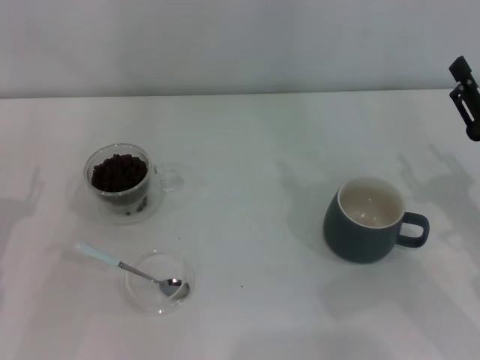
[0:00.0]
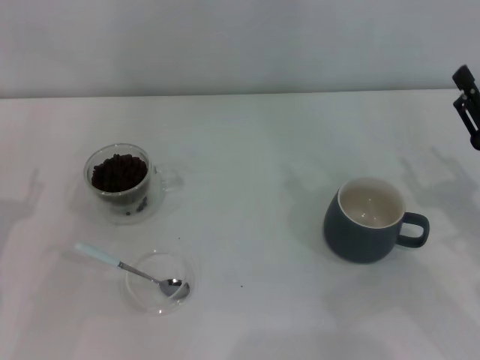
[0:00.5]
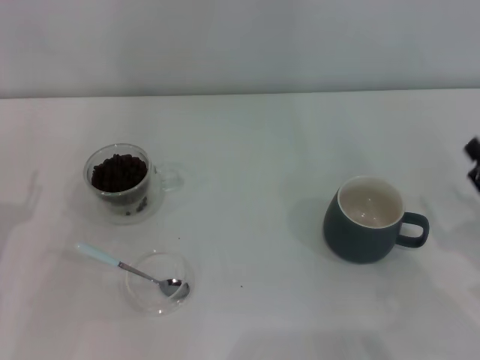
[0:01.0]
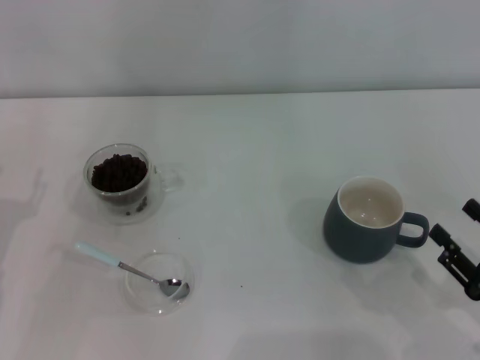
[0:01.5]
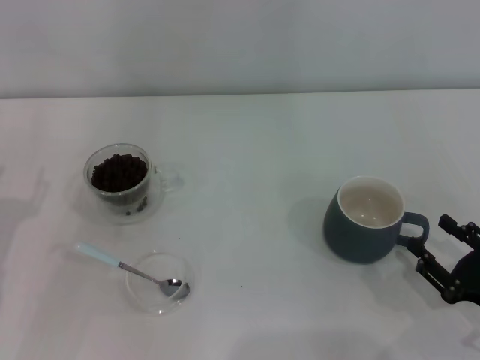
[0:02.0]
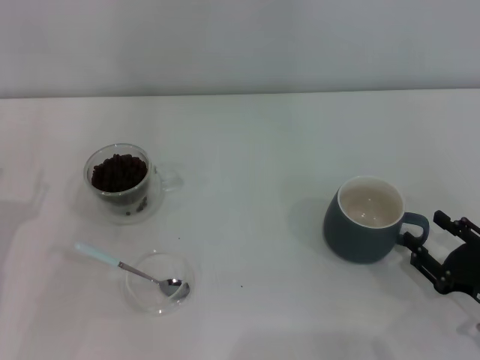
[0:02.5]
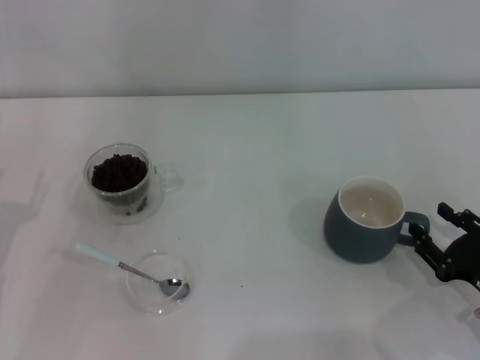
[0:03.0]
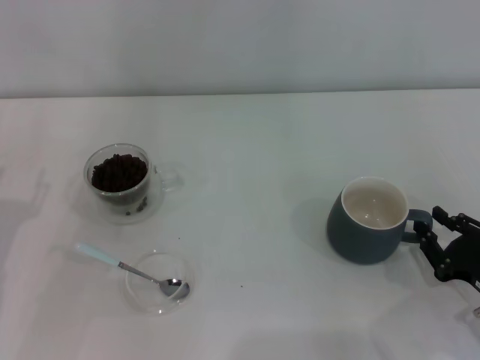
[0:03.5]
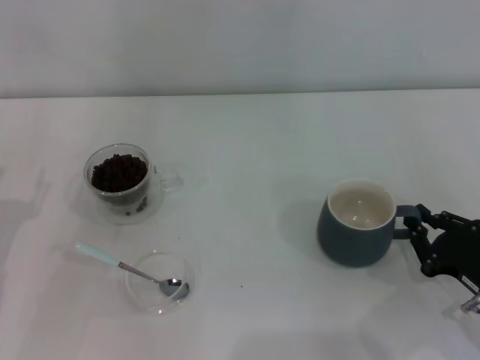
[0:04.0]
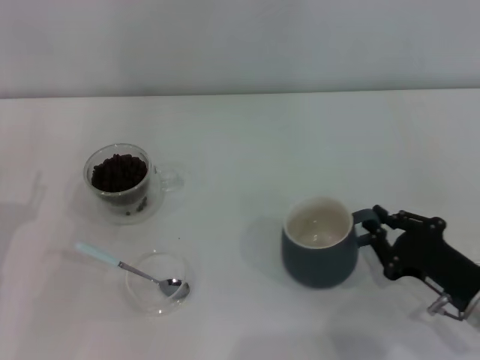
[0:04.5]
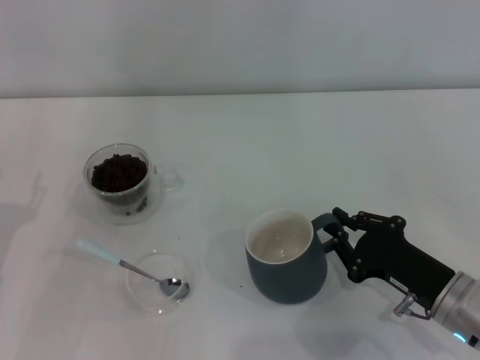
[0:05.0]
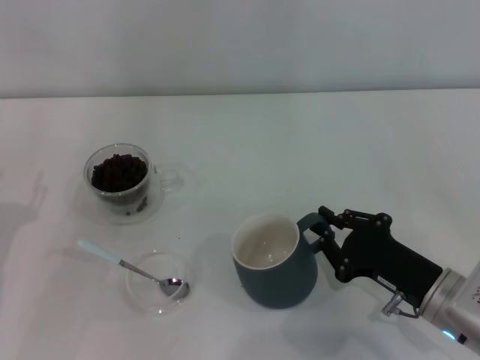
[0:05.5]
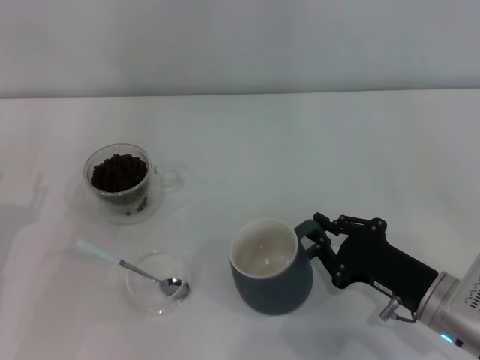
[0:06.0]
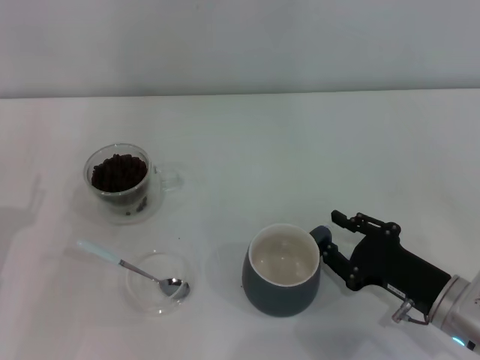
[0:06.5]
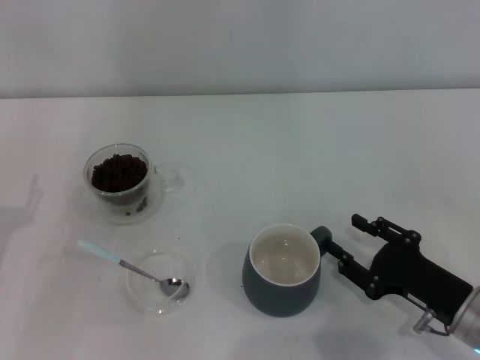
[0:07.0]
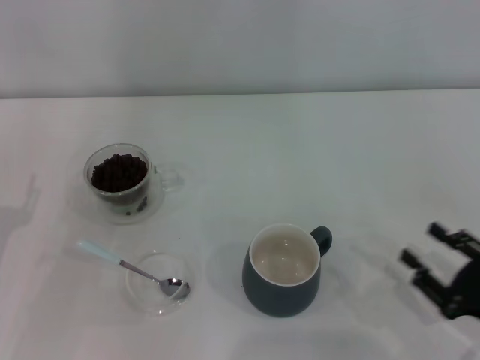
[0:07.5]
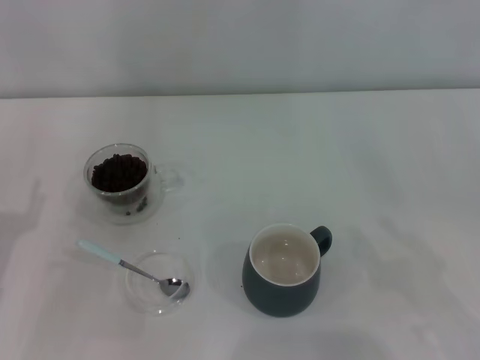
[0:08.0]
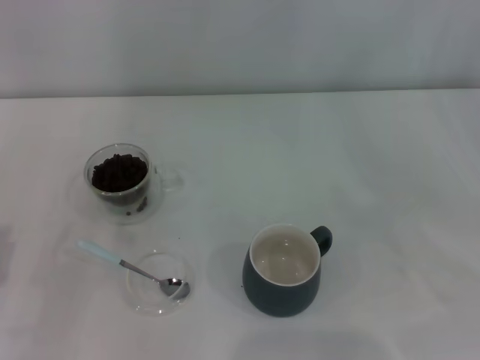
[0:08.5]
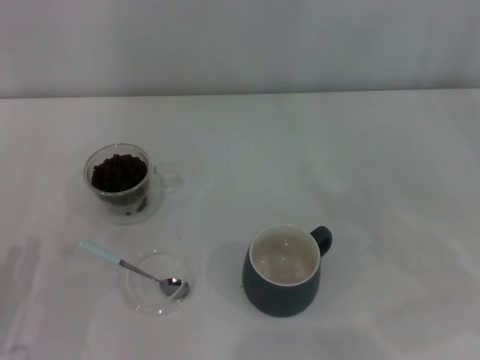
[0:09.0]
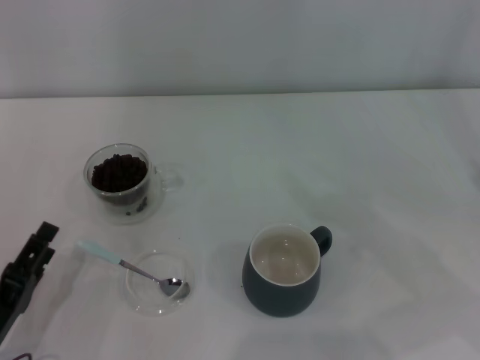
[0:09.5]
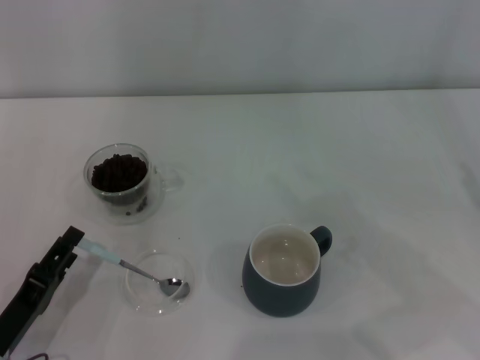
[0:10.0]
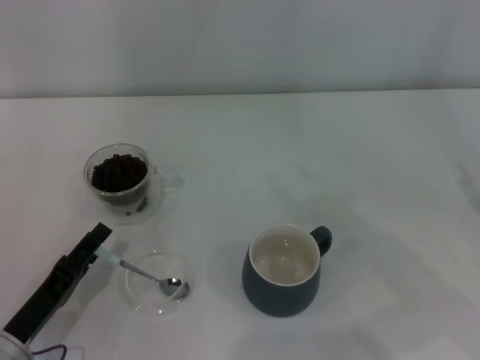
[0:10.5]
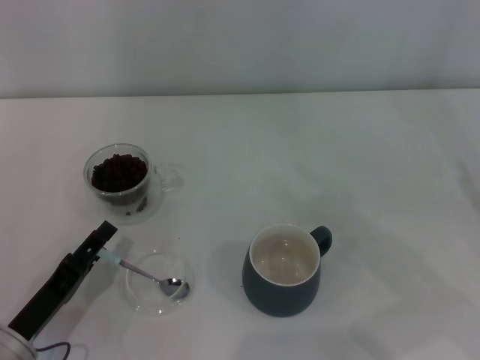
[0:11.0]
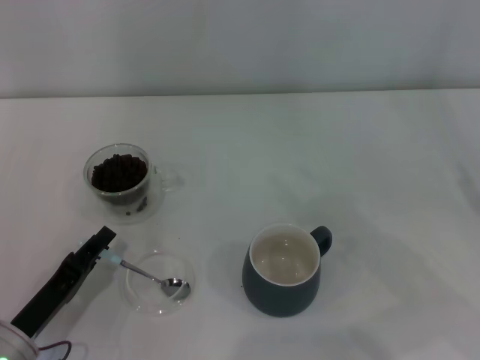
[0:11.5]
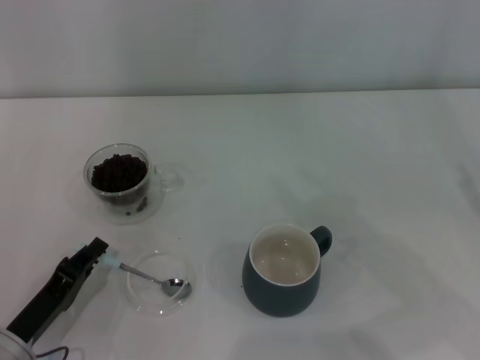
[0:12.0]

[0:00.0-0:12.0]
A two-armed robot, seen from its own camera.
Task of the whole recording: Use a blue spoon to take out the coffee beans from the glass and pour them into the gray cup.
0:00.0 to 0:02.0: The right gripper moves backward and downward, some 10 cm.
0:02.0 to 0:04.0: The right gripper closes.
0:04.0 to 0:06.0: The right gripper moves to the left, roughly 10 cm.
0:06.0 to 0:08.0: The right gripper travels to the right, backward and upward by about 15 cm, and opens its fingers.
0:08.0 to 0:10.0: The left gripper moves downward and backward, approximately 10 cm.
0:10.0 to 0:12.0: The left gripper closes its fingers.

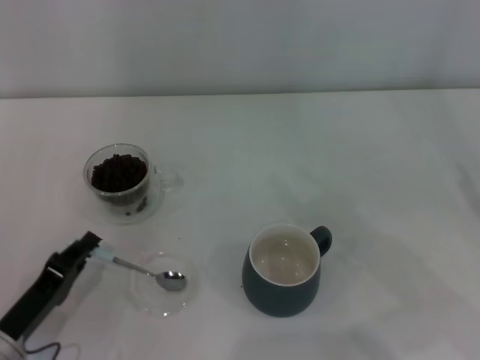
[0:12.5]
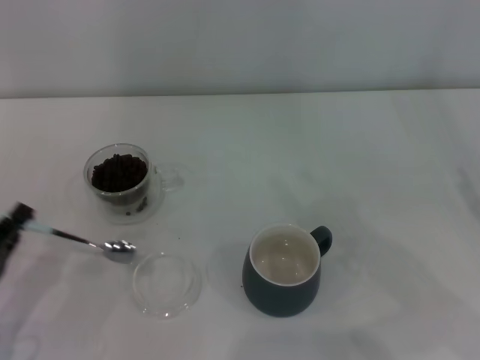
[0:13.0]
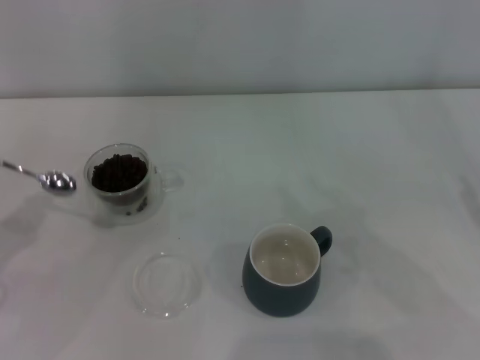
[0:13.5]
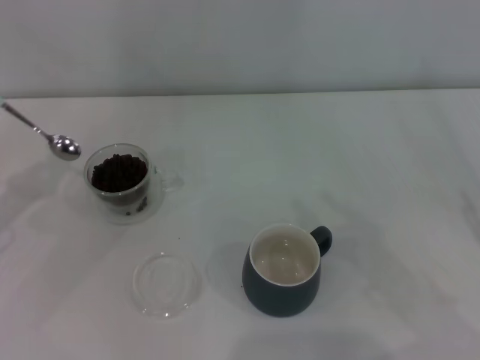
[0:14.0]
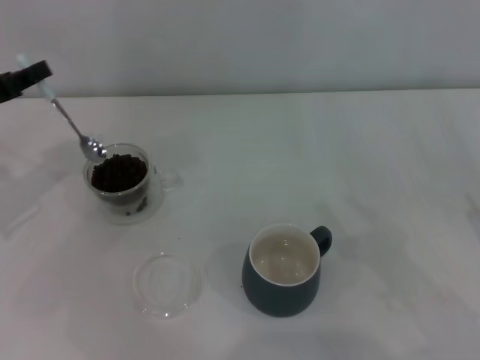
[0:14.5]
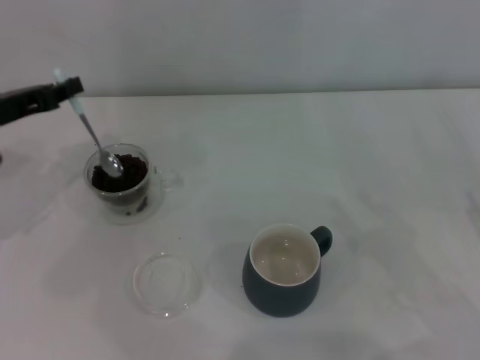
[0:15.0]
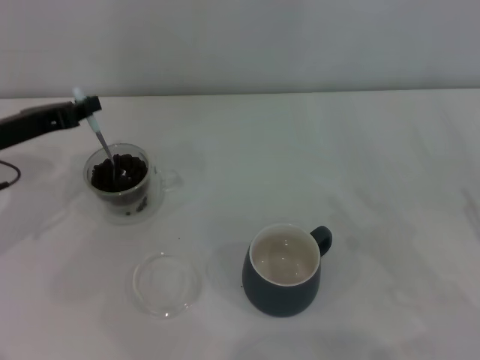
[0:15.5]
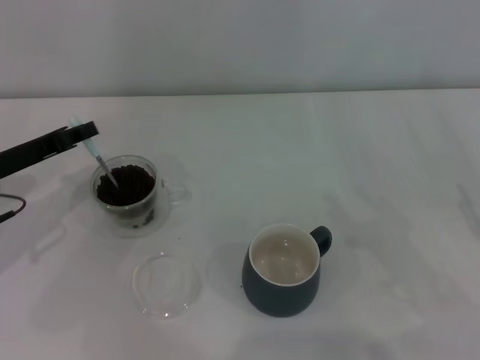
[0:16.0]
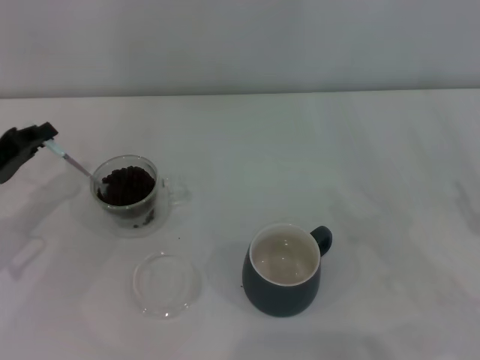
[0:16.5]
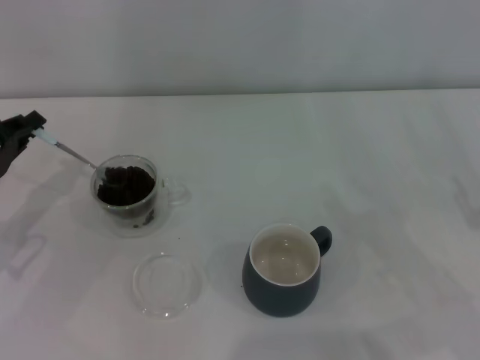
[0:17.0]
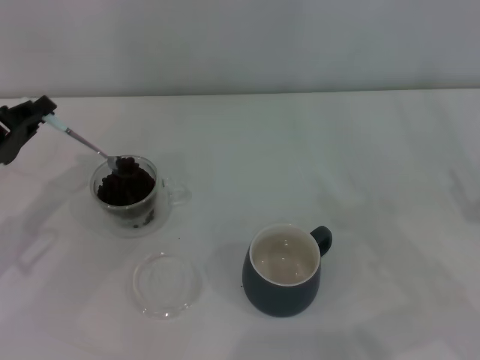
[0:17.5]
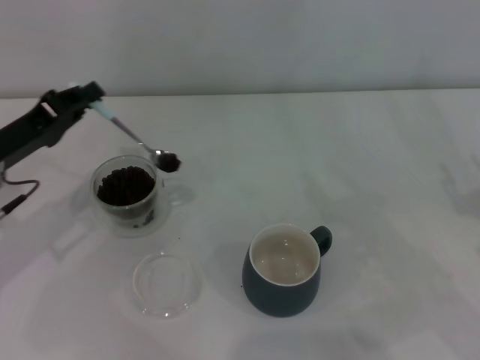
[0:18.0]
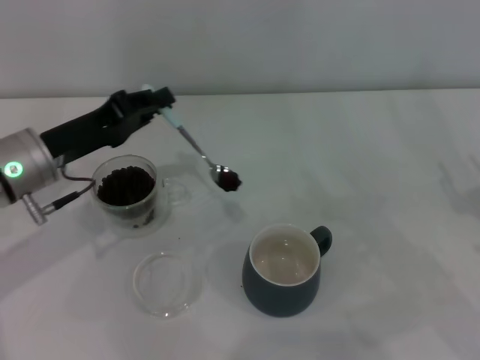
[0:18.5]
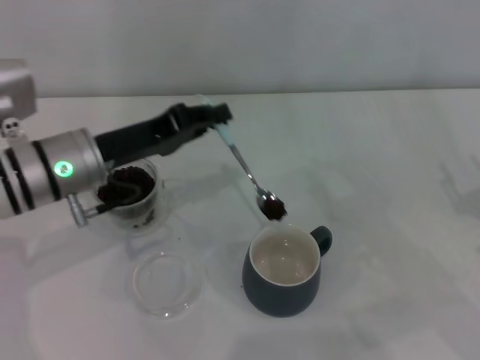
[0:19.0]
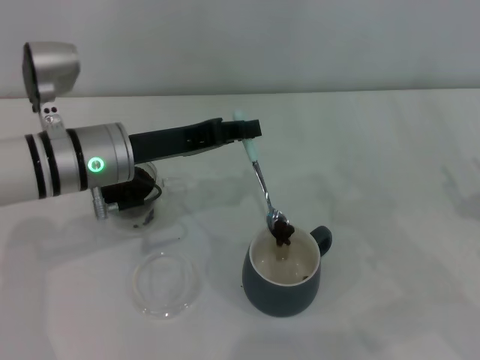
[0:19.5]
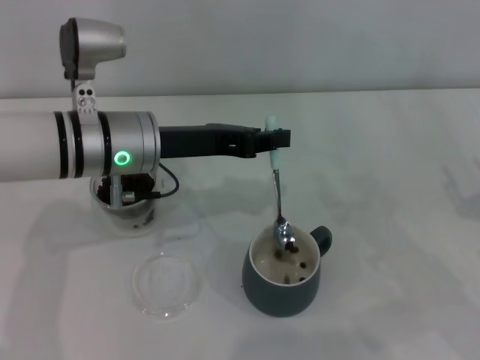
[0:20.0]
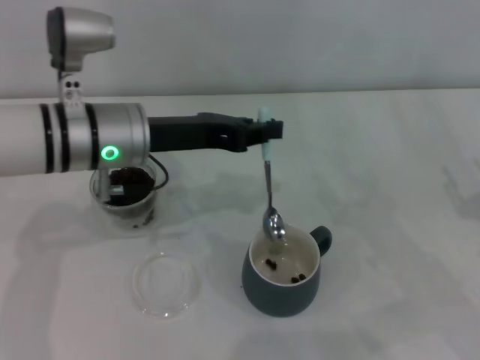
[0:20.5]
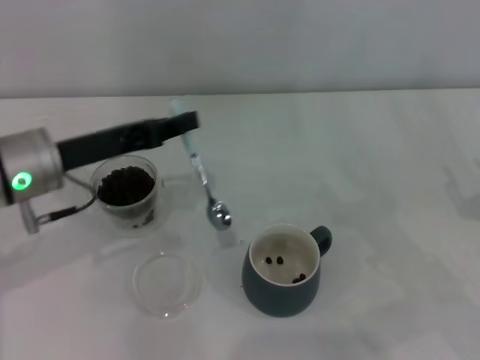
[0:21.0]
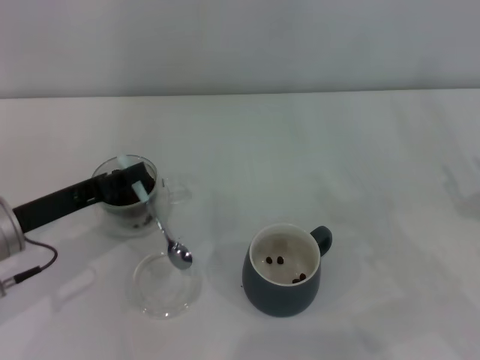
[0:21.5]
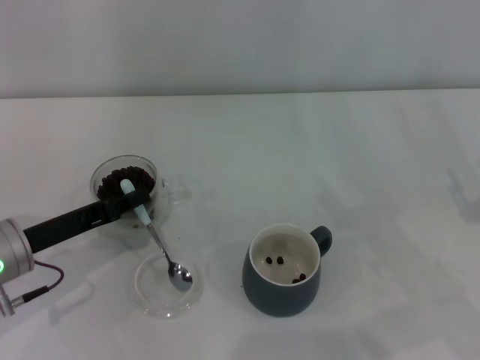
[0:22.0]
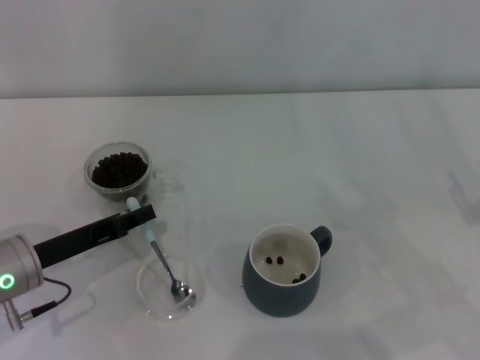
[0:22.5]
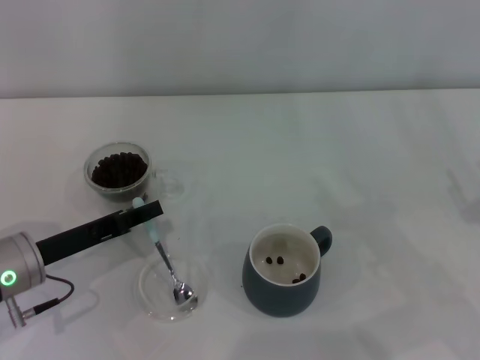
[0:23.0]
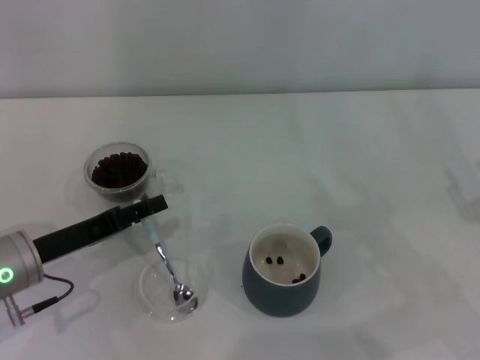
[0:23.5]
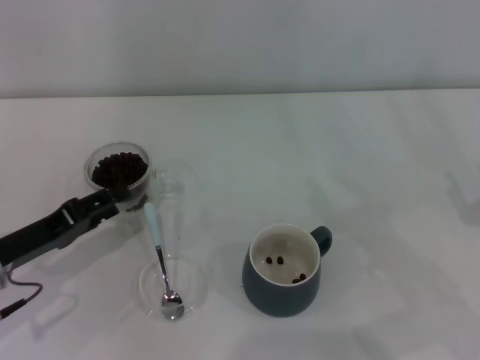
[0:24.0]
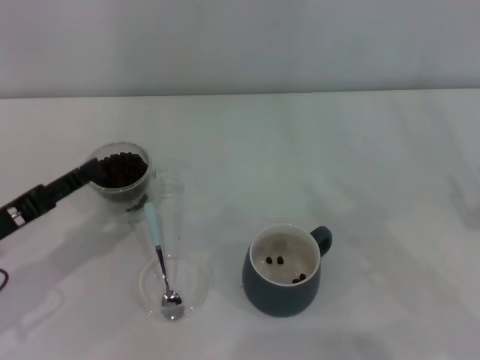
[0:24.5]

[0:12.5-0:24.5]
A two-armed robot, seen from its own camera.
Task of the whole recording: Use a blue spoon to take out the coffee beans from the glass and pour them into the gray cup.
Step, 0:13.0 to 0:20.5: Scoop a spoonful of beans into the cup with the right gripper.
0:12.5 to 0:14.5: The left gripper heads forward and upward, covering about 25 cm.
0:14.5 to 0:16.5: The left gripper travels downward by about 5 cm.
0:16.5 to 0:18.5: The left gripper heads to the right, covering some 10 cm.
0:18.5 to 0:20.5: The left gripper is displaced to the right by about 10 cm.
0:20.5 to 0:22.5: The left gripper heads to the left, downward and backward, covering roughly 15 cm.
0:22.5 to 0:24.5: The left gripper changes place by some 5 cm, and opens up.
